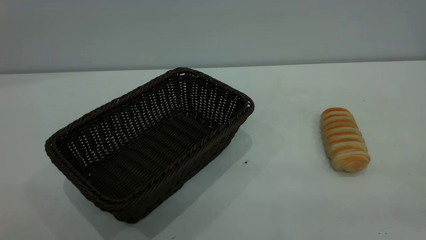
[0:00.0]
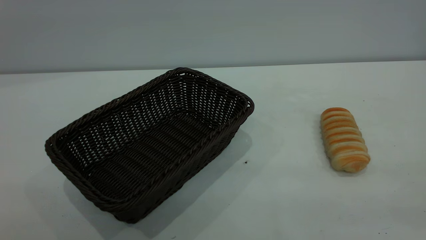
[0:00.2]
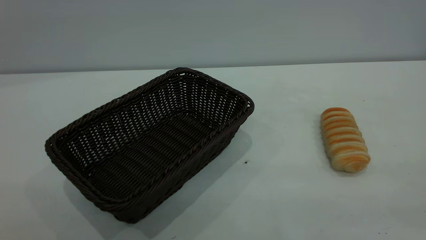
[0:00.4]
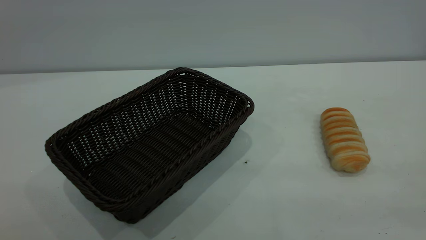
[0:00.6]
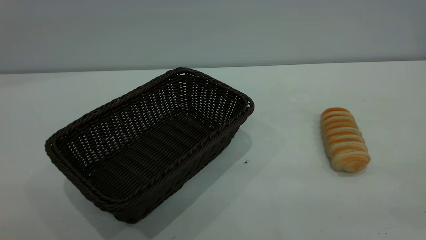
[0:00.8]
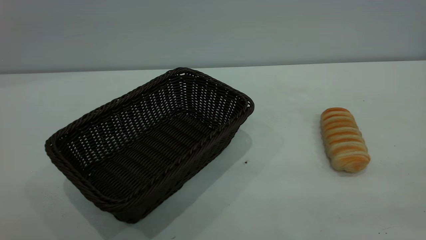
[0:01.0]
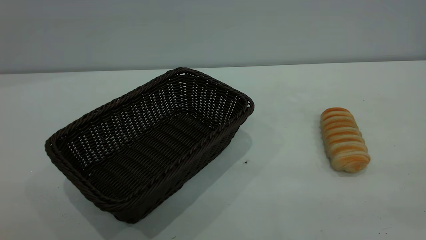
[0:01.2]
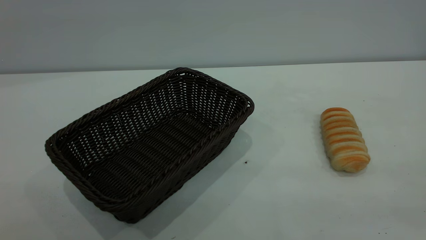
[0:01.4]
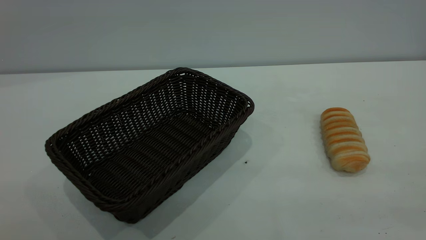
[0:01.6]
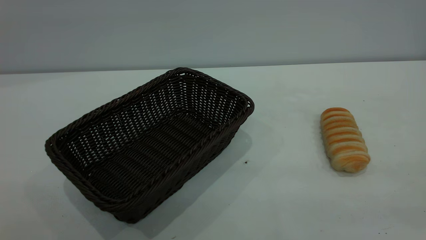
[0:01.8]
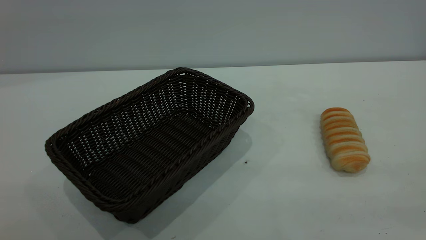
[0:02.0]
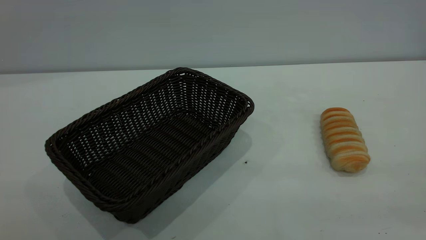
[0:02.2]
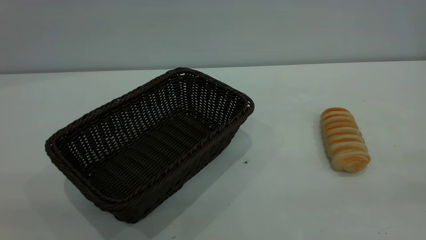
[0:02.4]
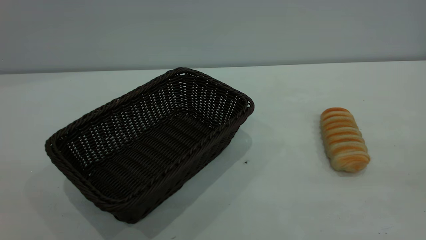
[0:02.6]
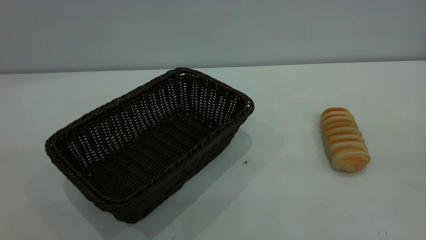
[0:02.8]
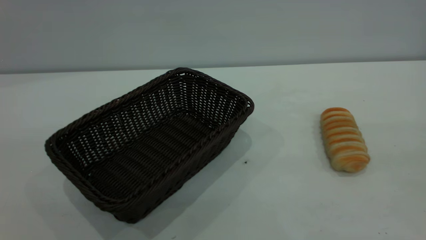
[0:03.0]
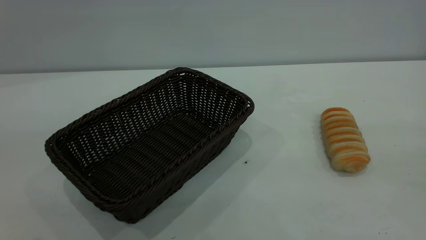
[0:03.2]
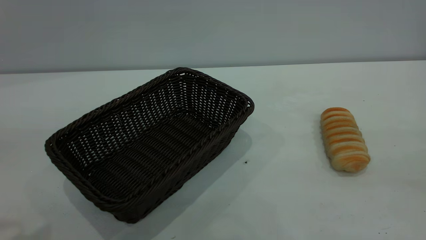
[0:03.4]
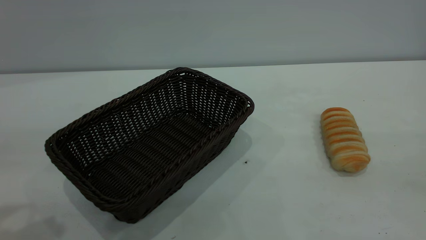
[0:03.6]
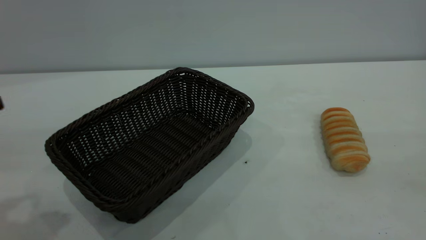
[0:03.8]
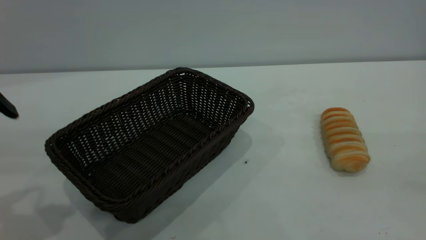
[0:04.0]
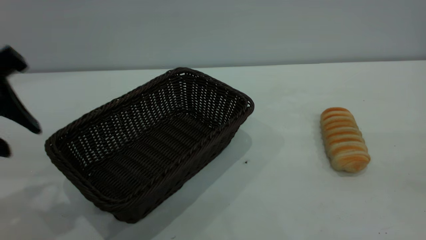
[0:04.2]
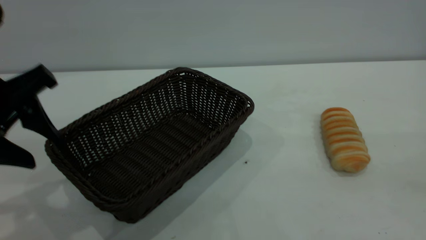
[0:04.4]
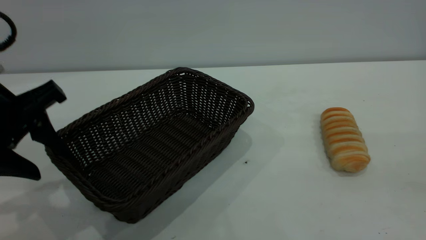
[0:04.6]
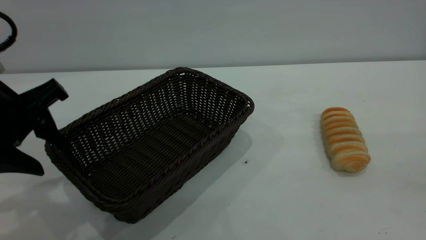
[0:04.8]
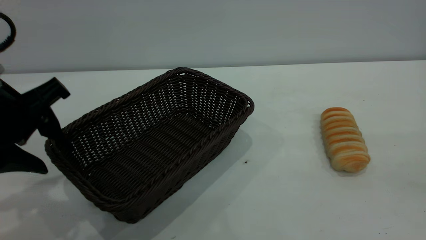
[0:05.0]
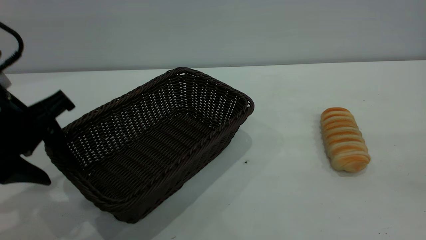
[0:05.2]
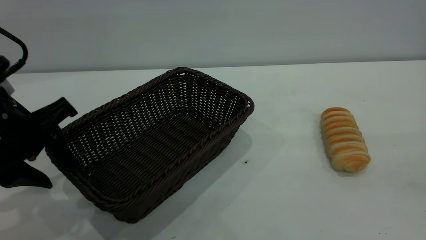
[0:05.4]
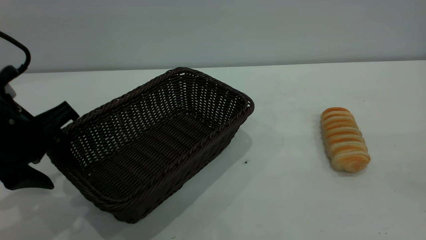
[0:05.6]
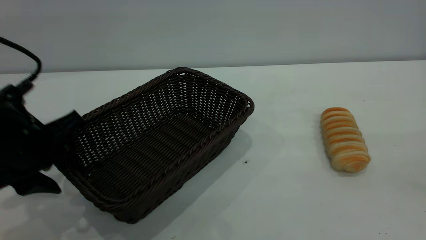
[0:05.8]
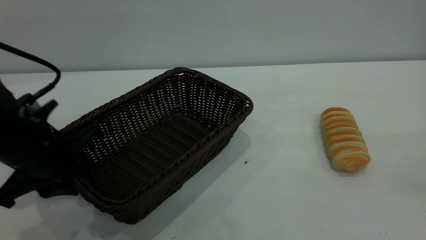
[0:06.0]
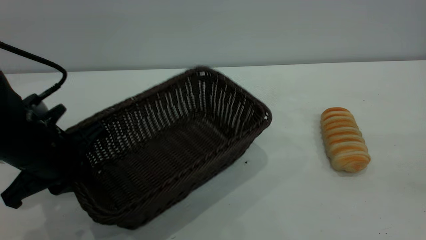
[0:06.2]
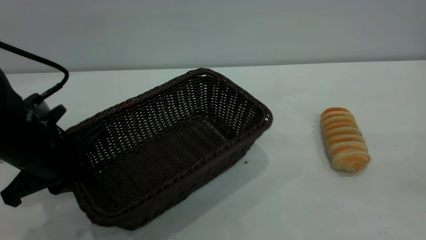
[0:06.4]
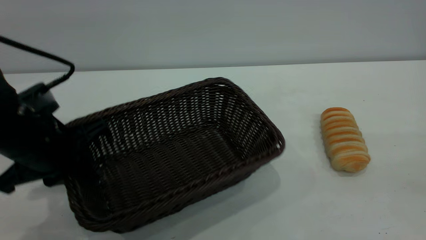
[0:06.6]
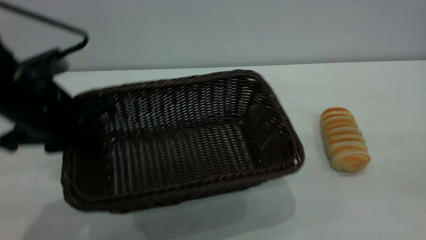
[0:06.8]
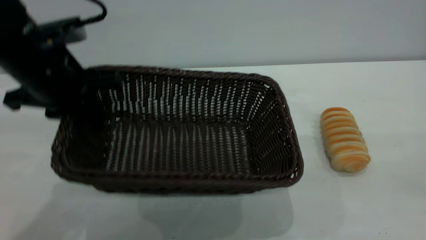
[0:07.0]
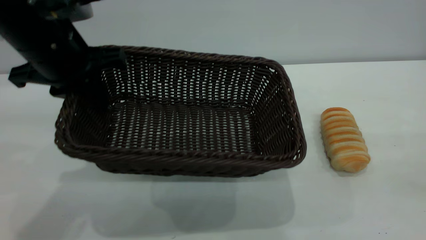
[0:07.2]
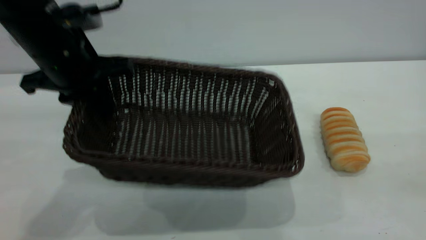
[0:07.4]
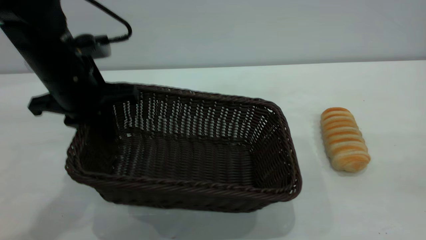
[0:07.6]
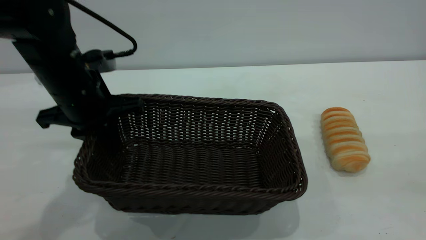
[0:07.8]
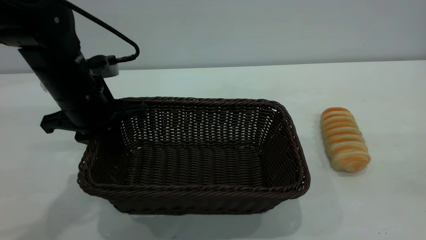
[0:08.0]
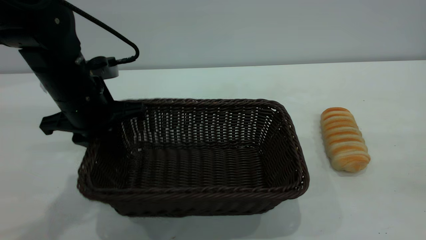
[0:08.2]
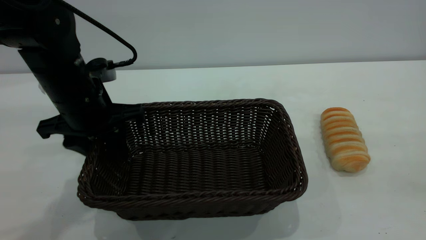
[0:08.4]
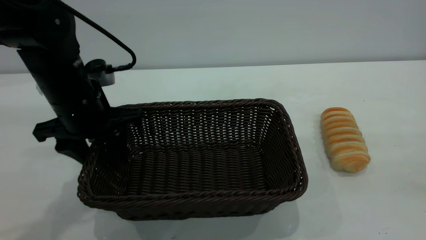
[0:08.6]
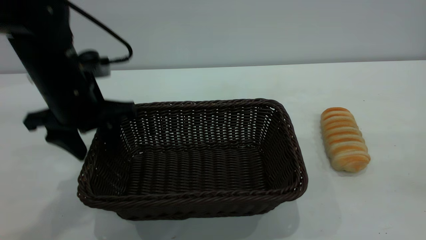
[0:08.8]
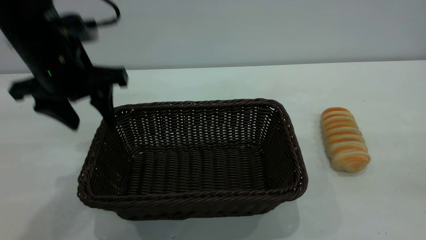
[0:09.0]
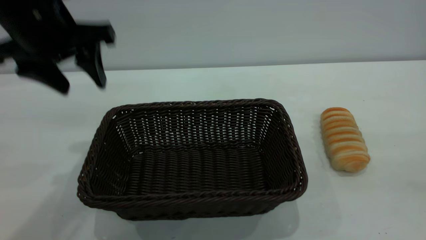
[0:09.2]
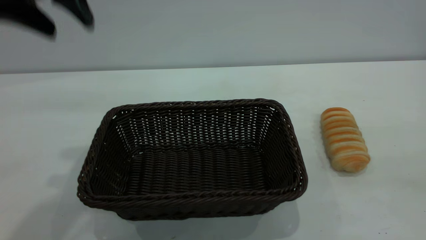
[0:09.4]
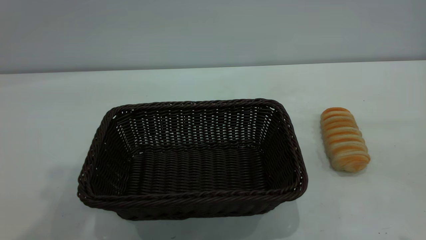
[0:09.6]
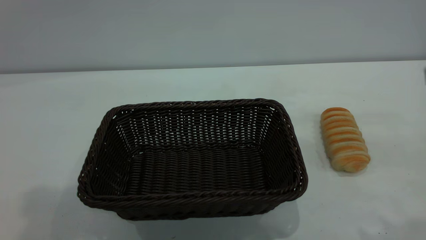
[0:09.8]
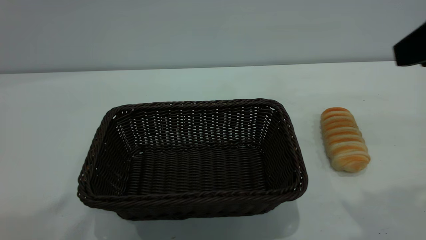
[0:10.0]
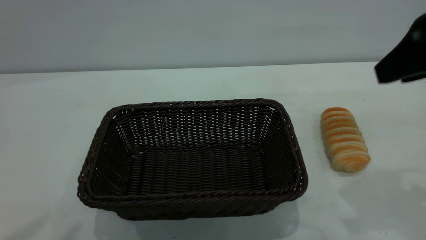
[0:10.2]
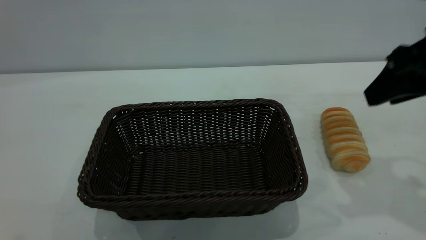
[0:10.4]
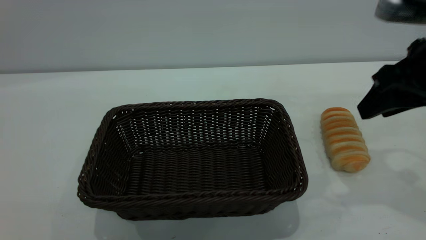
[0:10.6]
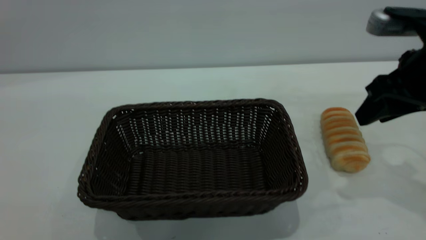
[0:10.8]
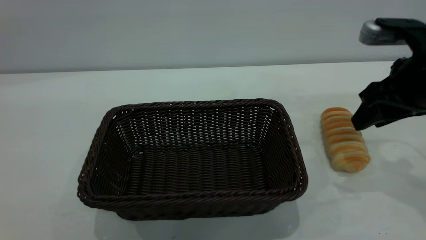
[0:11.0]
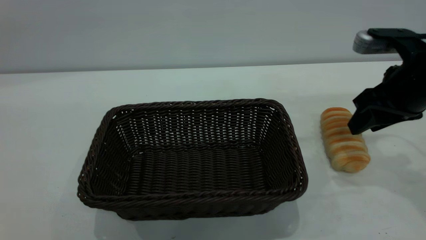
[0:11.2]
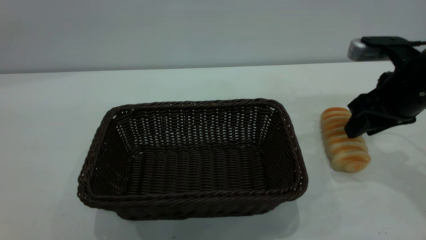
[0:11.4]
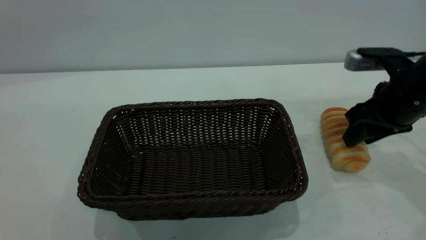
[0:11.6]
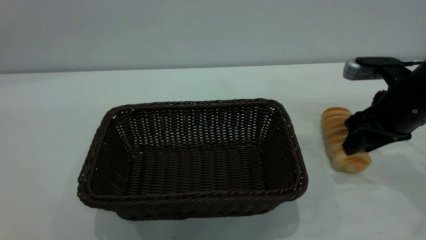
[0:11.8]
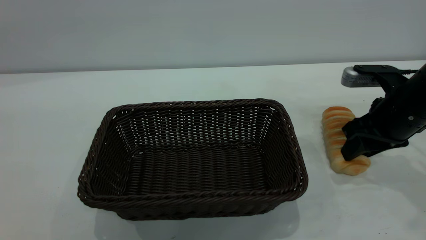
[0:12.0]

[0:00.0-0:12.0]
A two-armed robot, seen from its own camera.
Task of the whole recording: One hand grasps the black basket and places it in the middle of the table, while the other hand picks up the long bread and puts it into the black basket.
Step, 0:00.0 to 0:09.0: Move the basket to the center of view.
0:00.0 to 0:01.6: The two grippers keep their place.
0:03.0 to 0:04.4: The left gripper moves downward and forward, roughly 25 cm.
0:04.4 to 0:06.0: The left gripper goes approximately 10 cm downward, and closes up.
0:06.0 to 0:07.6: The left gripper moves forward, approximately 10 cm.
0:07.6 to 0:09.0: The left gripper is displaced upward by approximately 5 cm, and opens.
0:09.0 to 0:10.4: The right gripper goes approximately 20 cm forward and downward. Meanwhile the left gripper moves upward and backward, approximately 40 cm.
0:10.4 to 0:12.0: The right gripper moves downward and forward, some 15 cm.

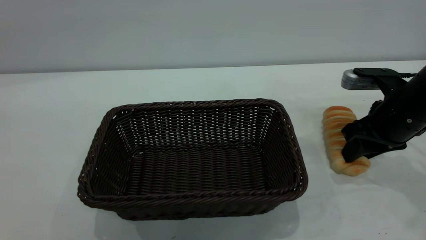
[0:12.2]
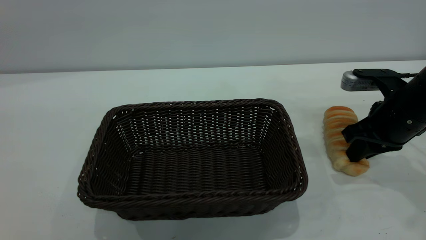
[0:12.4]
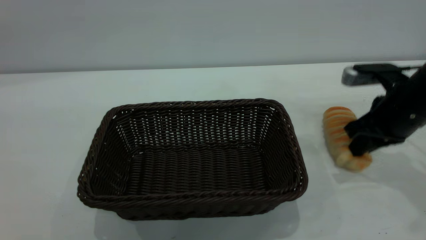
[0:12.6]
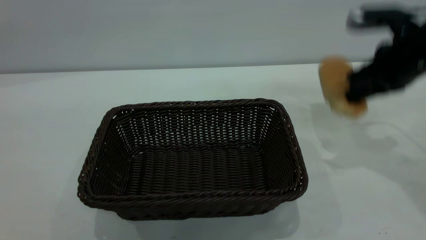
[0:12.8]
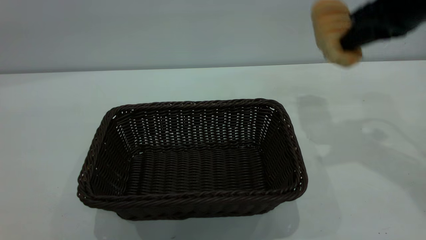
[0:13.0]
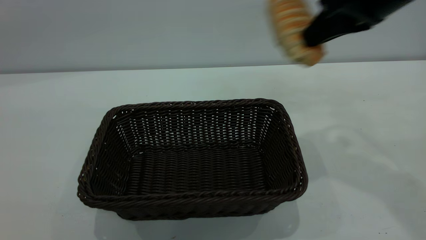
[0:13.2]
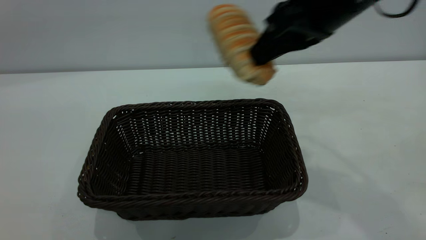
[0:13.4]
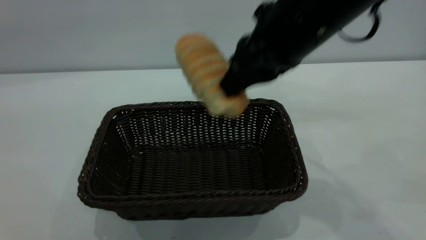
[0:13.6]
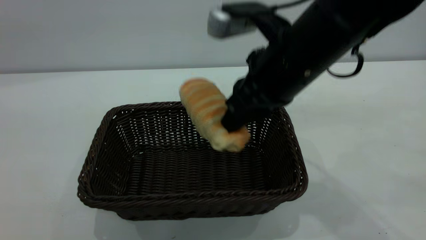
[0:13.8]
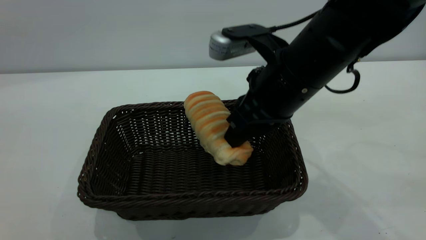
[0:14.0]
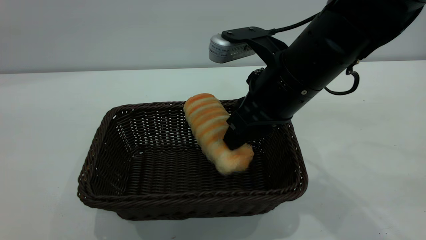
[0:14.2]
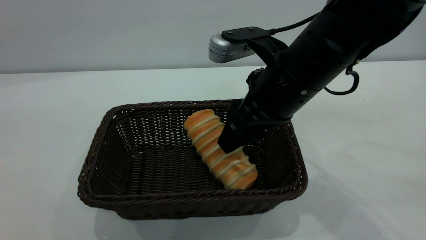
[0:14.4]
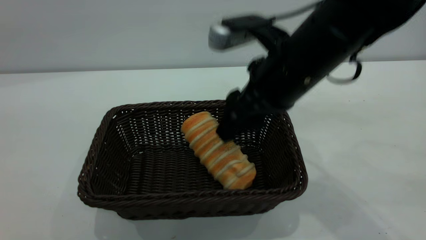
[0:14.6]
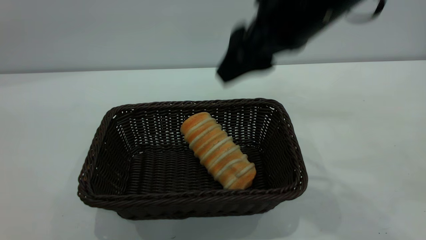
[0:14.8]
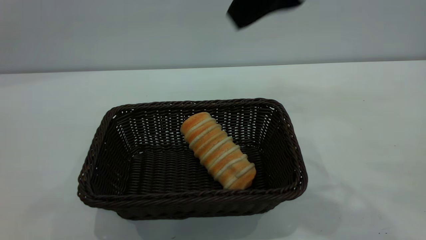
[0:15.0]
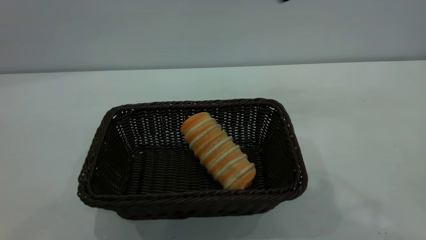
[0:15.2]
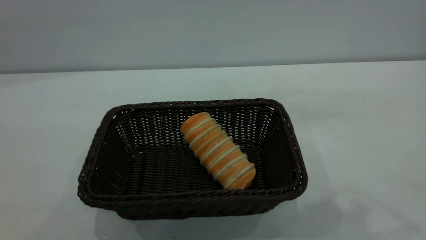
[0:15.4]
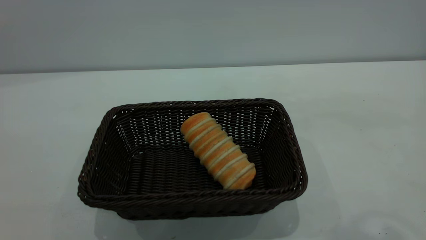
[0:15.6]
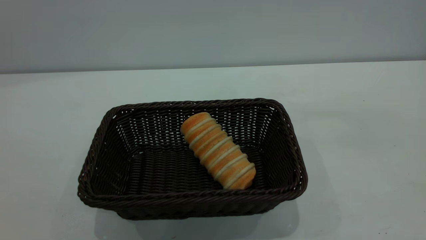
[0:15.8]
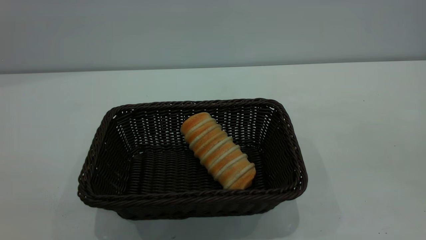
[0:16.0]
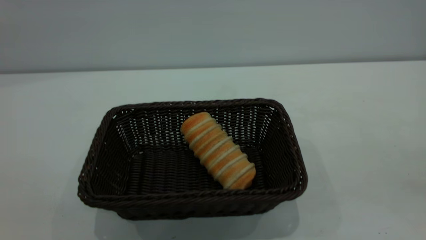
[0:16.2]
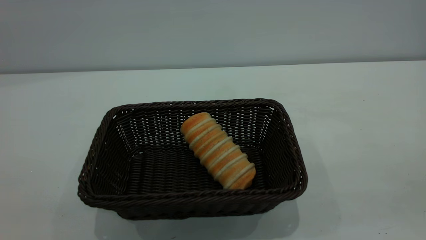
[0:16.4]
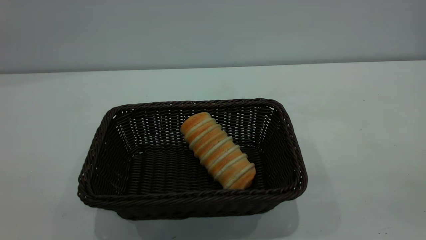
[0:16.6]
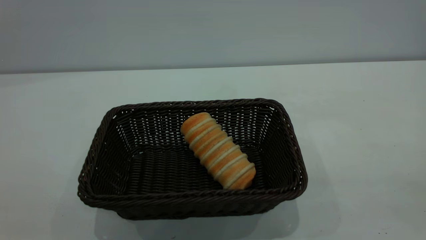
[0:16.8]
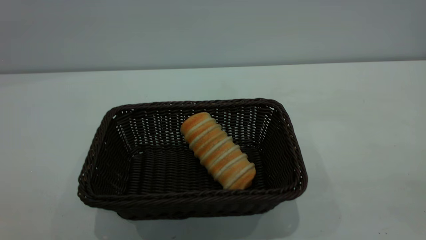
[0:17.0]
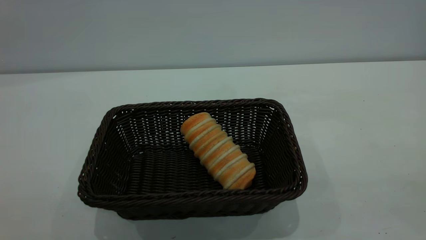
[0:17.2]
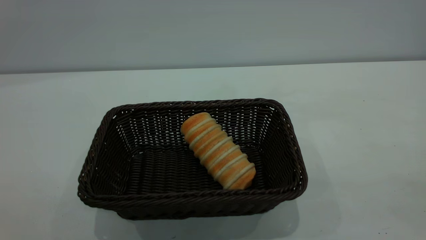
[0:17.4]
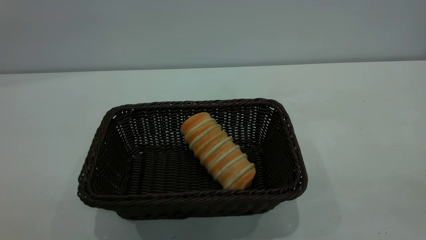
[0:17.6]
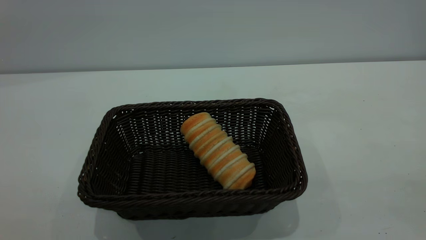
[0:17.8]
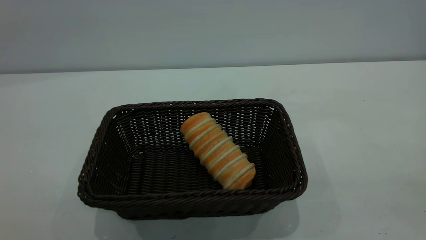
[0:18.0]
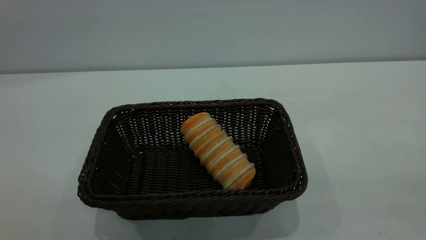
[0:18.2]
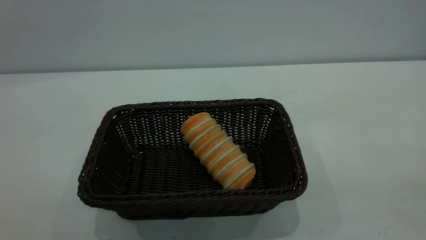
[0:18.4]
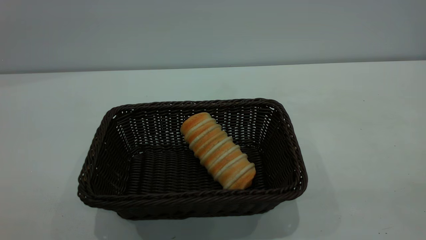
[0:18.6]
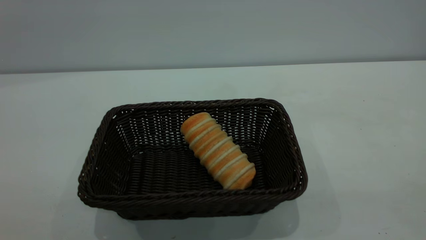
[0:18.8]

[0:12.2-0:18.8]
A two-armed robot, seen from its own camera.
Task of the whole recording: One hand grasps the black basket and places it in the middle of the table, while the other hand picks up the long bread and puts it into the black basket.
Step, 0:13.0 to 0:14.8: place the bread into the basket.
0:12.2 to 0:13.8: The right gripper shifts some 20 cm to the left and upward, and closes up.
0:13.8 to 0:15.4: The left gripper changes place by roughly 5 cm. The right gripper shifts some 25 cm upward and backward, and opens up.
